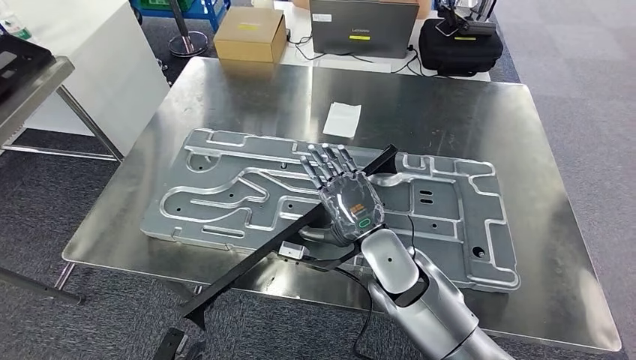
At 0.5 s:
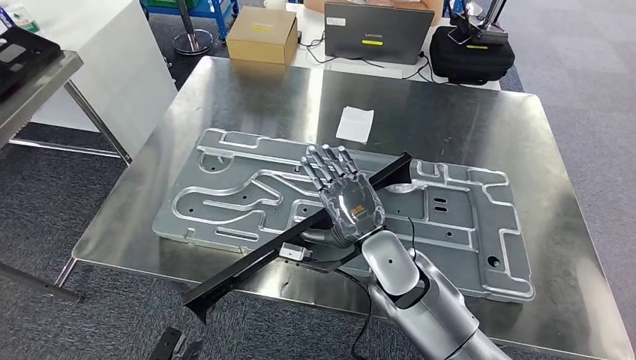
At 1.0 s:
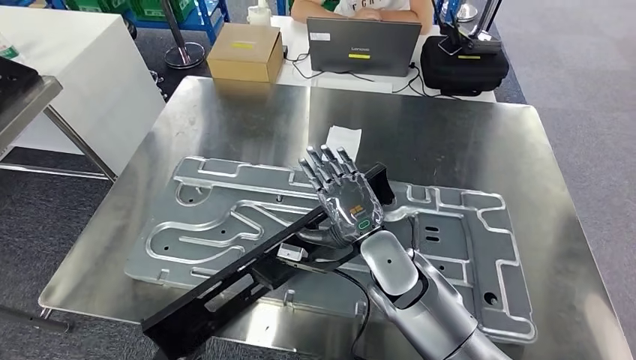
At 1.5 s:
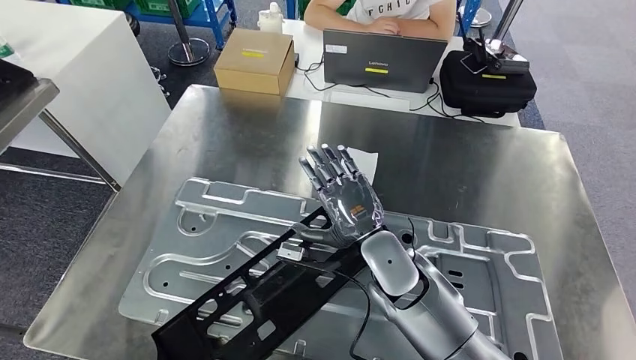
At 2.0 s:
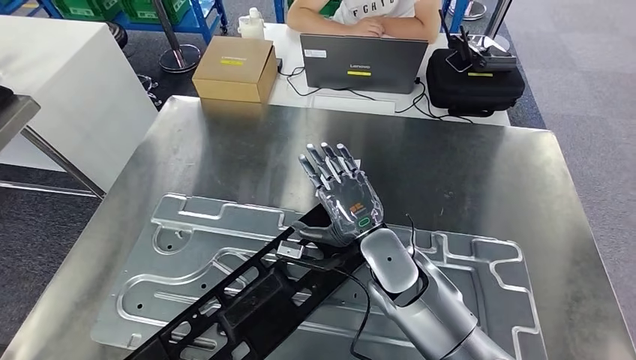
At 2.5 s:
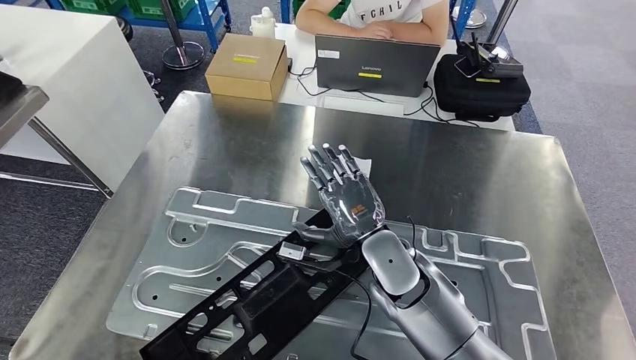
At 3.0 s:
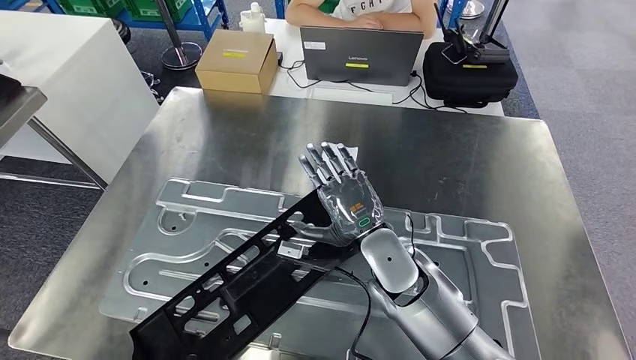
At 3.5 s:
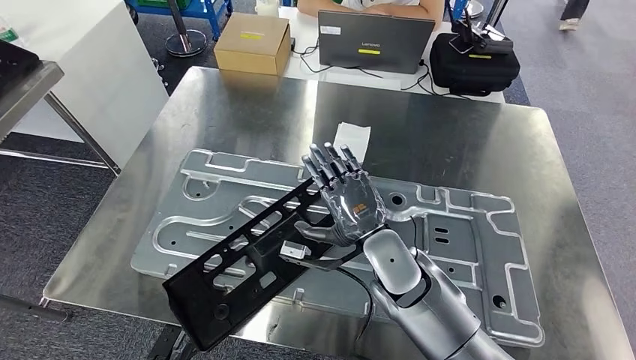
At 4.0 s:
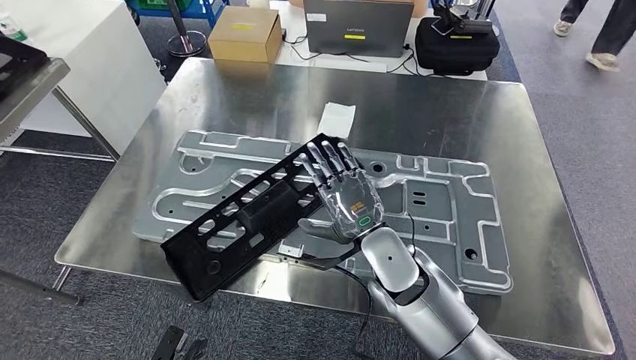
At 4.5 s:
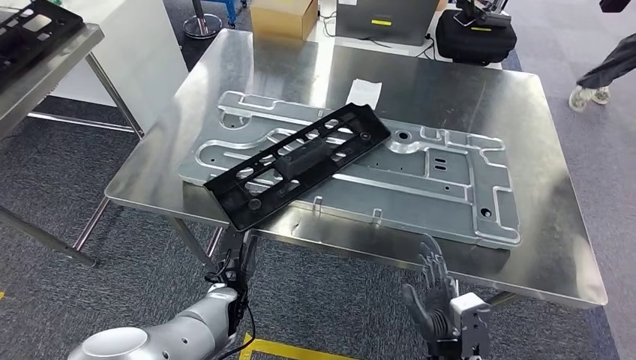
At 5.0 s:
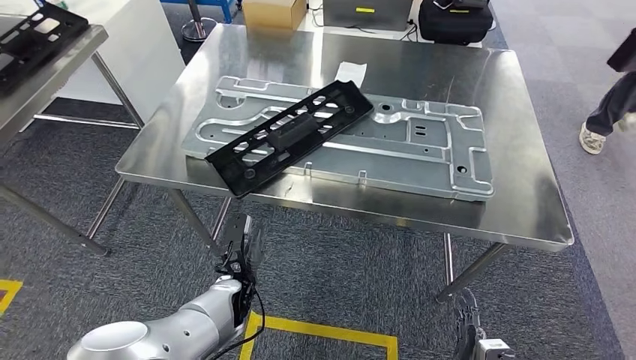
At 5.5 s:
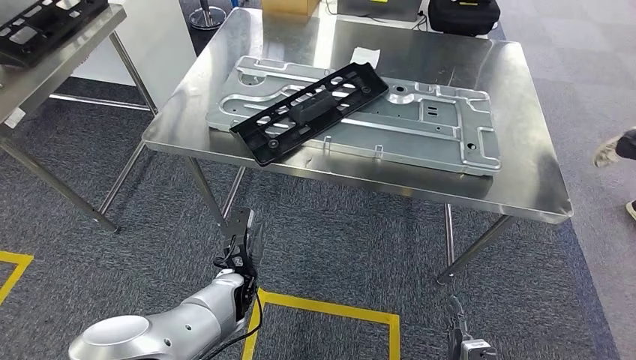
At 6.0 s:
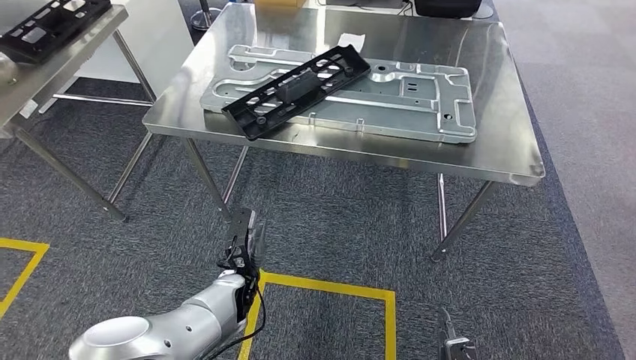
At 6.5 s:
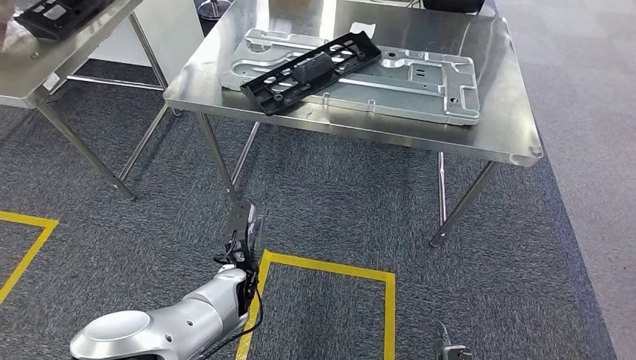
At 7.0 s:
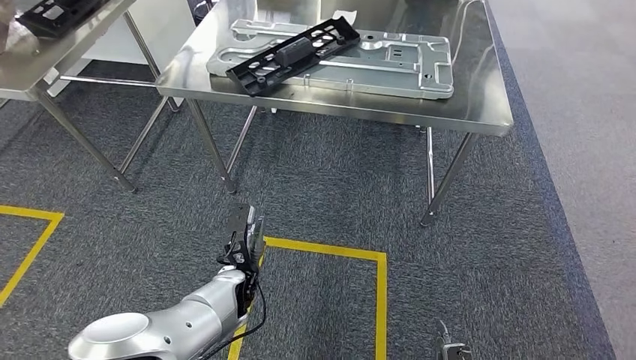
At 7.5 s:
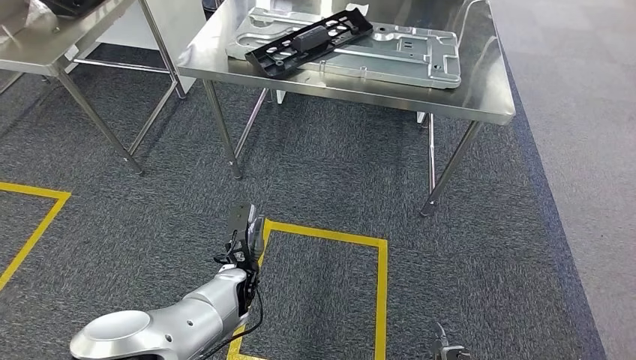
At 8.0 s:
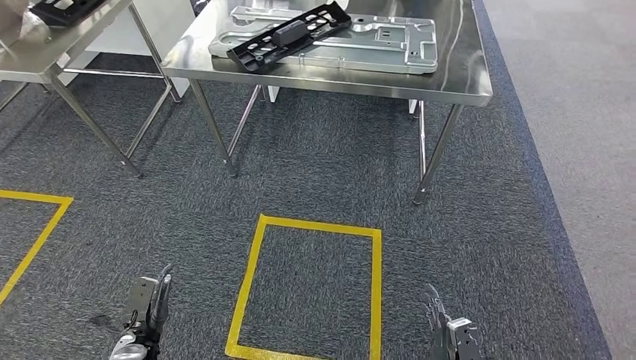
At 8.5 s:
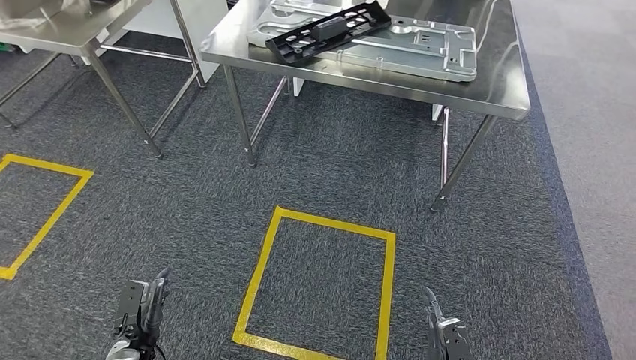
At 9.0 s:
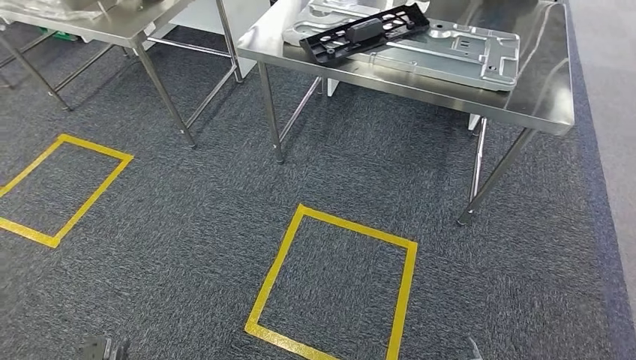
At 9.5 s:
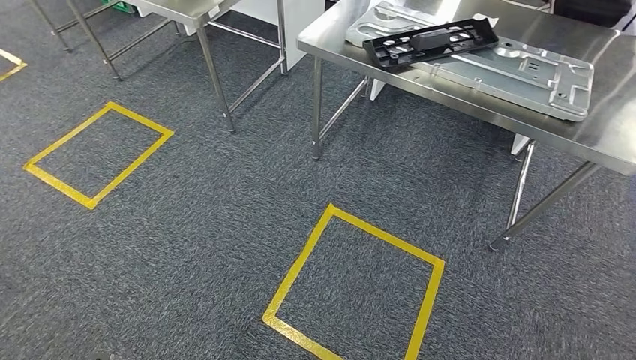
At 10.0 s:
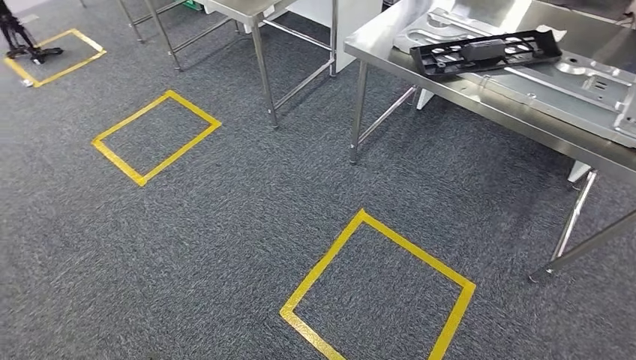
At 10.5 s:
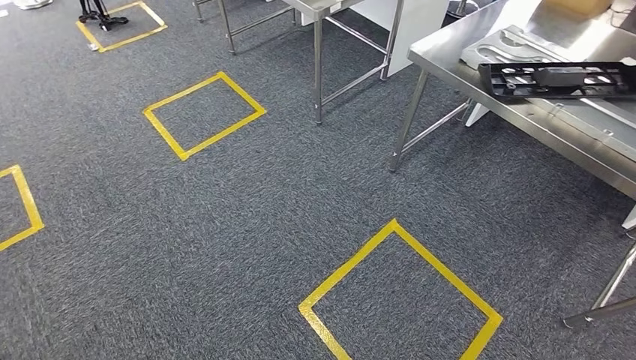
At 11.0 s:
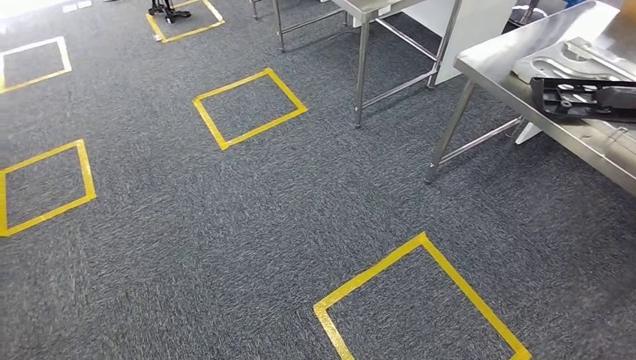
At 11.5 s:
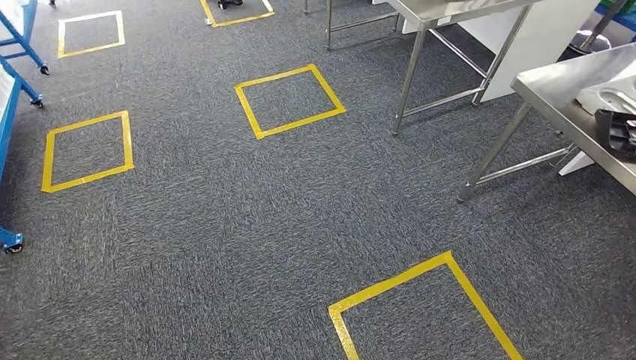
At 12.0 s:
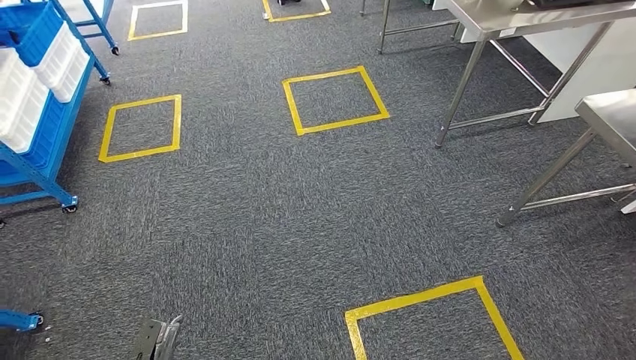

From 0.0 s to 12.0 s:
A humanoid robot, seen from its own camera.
Step, from 0.0 s to 5.5 s: Insert the large material into the corresponding slot on the workbench.

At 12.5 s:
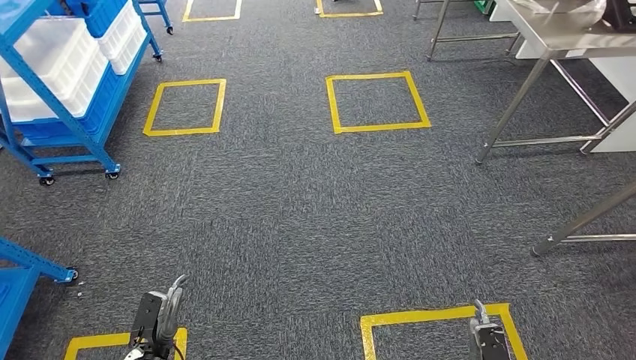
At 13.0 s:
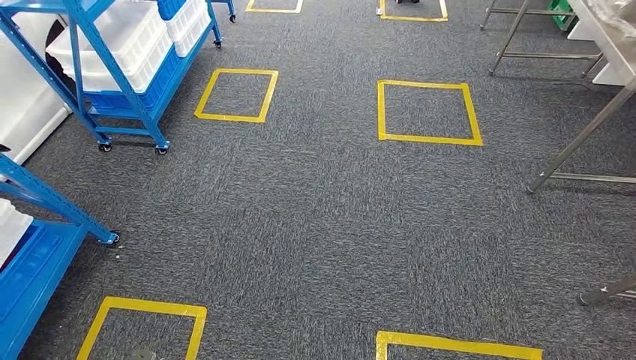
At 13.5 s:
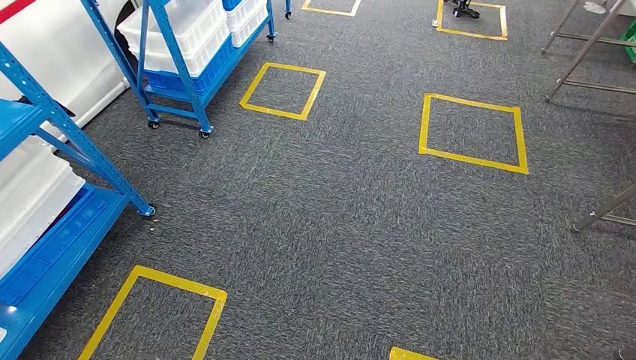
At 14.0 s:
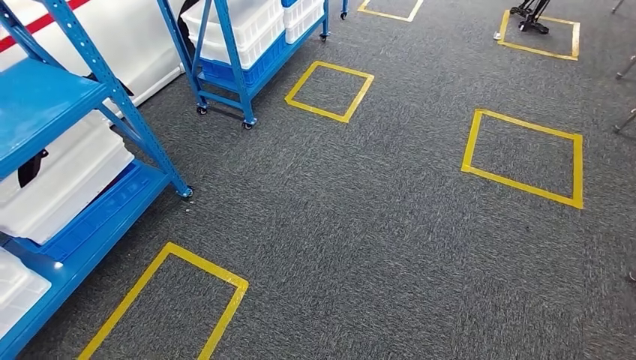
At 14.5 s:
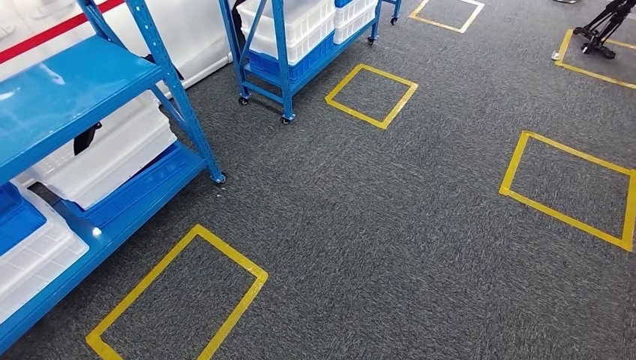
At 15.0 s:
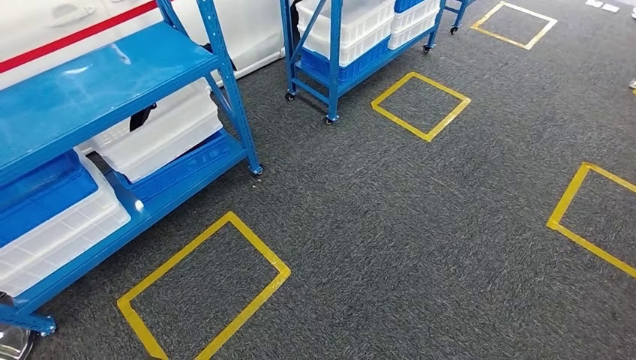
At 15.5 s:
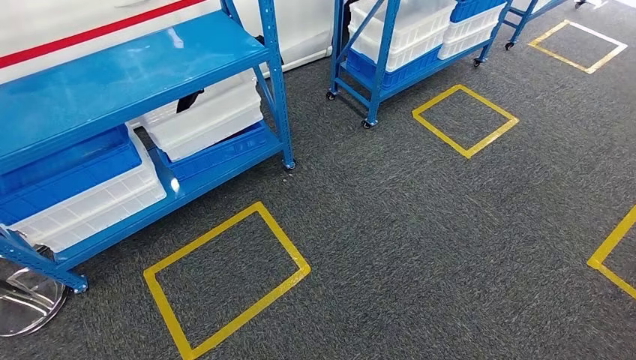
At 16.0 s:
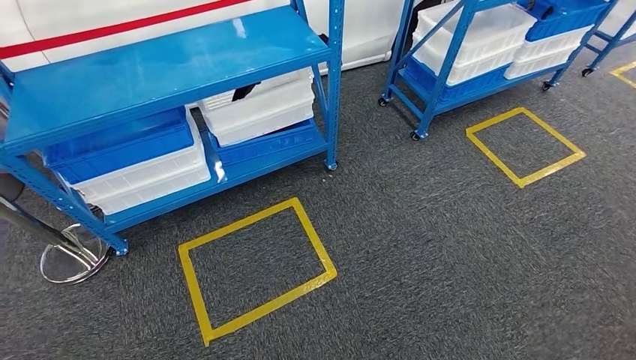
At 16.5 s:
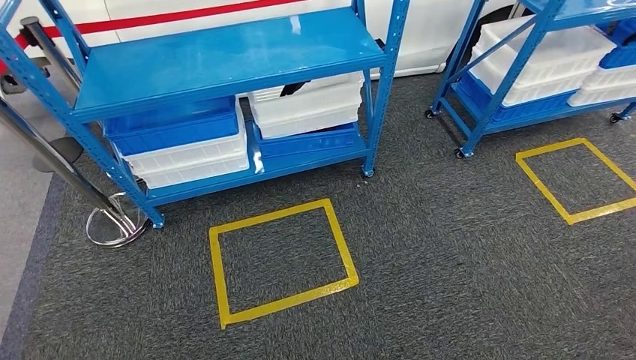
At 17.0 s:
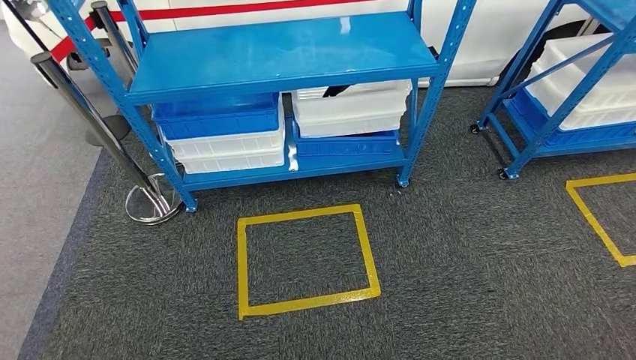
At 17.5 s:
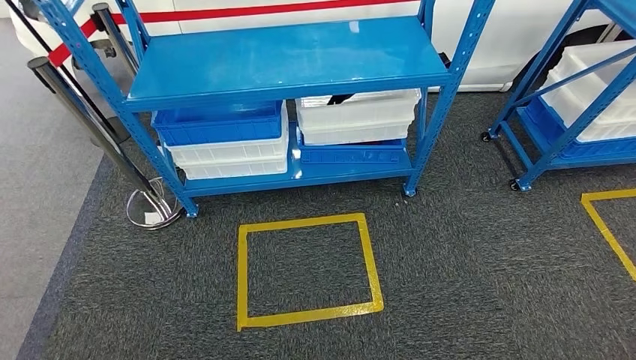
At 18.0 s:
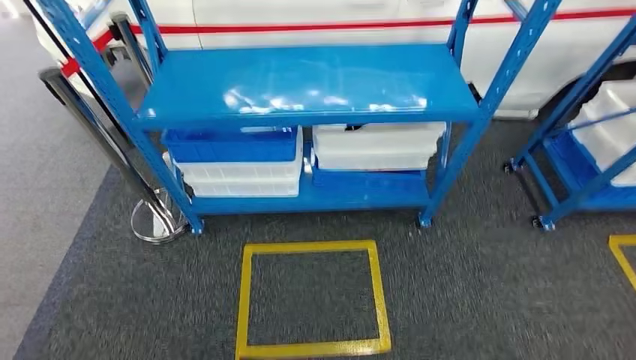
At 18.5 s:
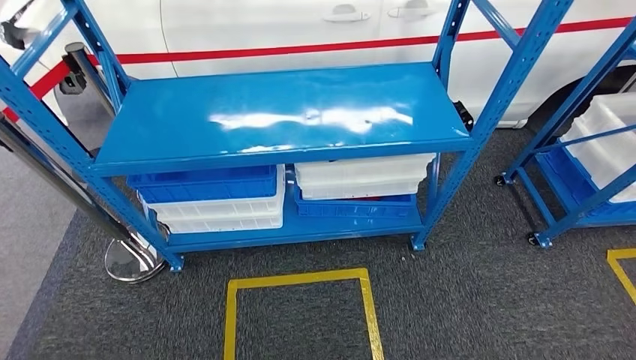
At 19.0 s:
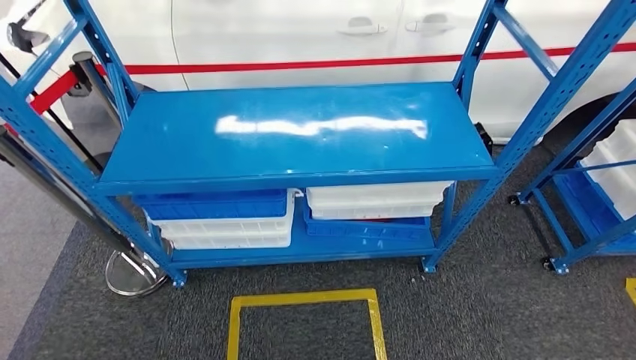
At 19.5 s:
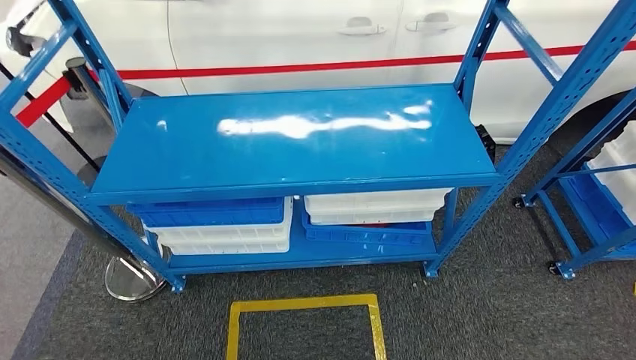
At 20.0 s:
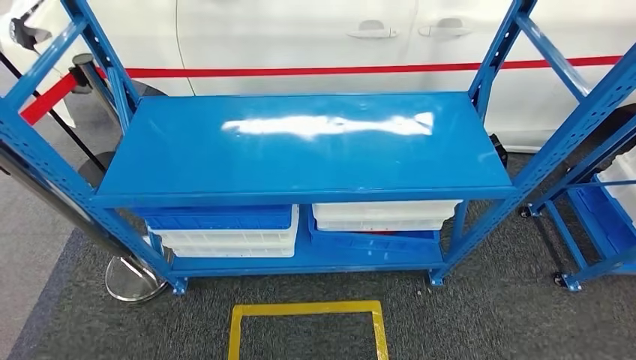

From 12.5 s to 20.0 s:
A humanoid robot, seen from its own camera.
Step, from 12.5 s to 20.0 s: Move to the initial position of the shelf.
